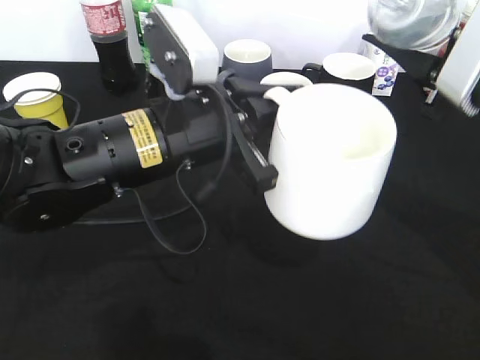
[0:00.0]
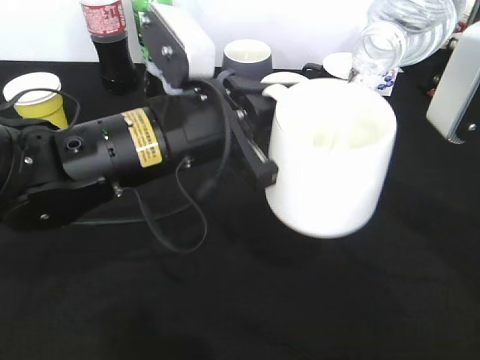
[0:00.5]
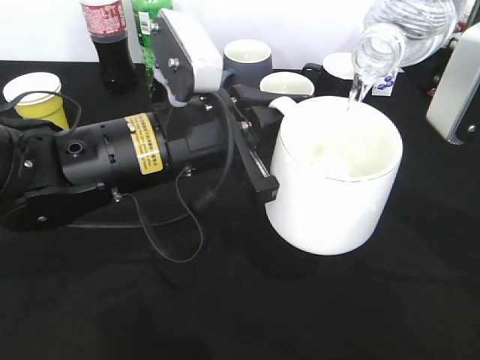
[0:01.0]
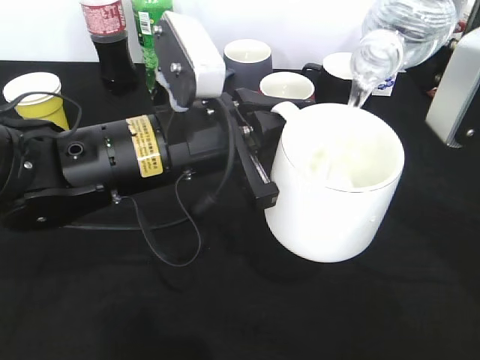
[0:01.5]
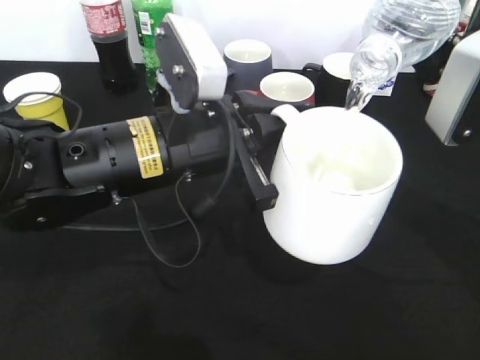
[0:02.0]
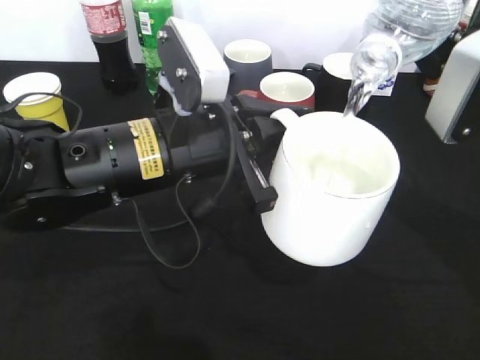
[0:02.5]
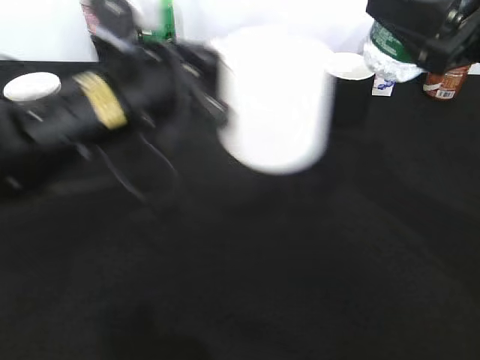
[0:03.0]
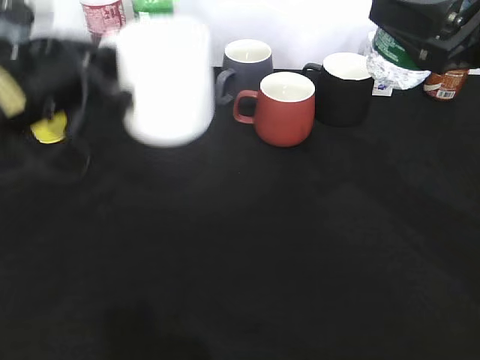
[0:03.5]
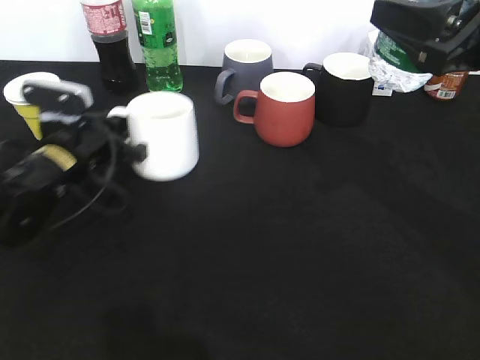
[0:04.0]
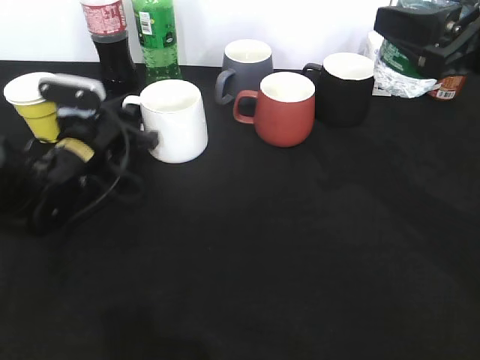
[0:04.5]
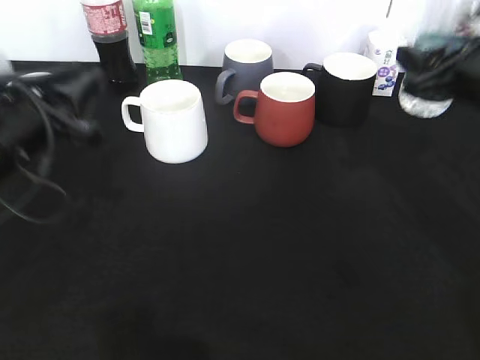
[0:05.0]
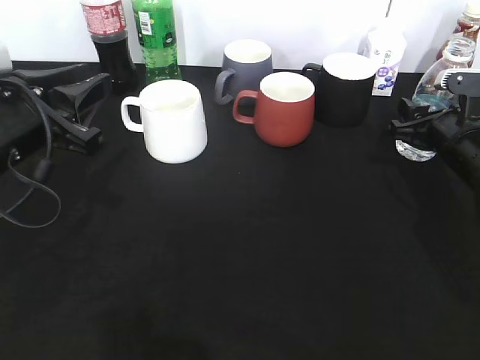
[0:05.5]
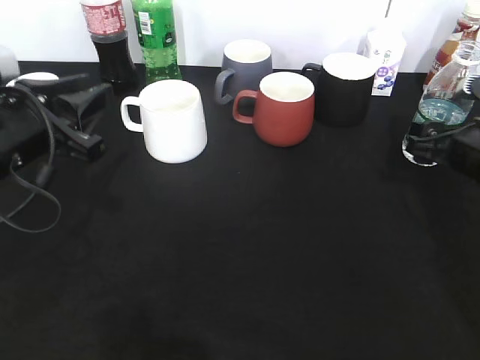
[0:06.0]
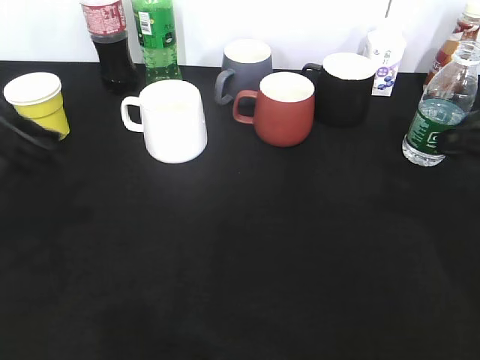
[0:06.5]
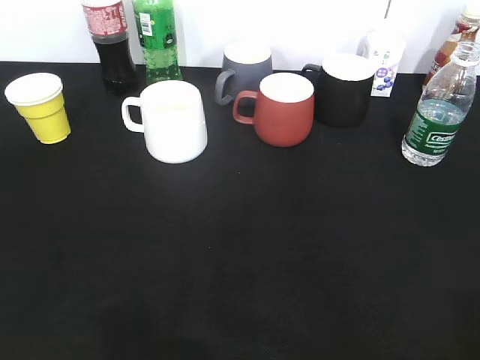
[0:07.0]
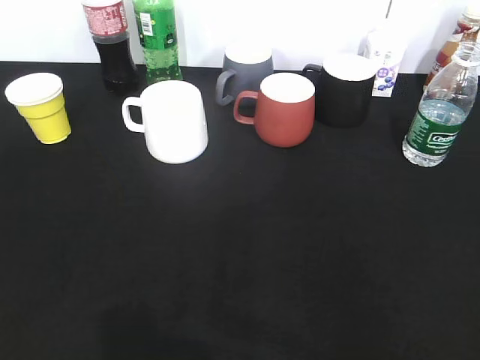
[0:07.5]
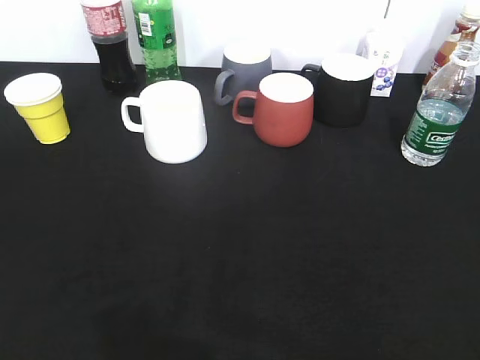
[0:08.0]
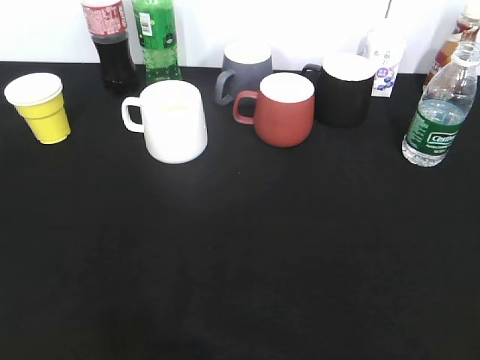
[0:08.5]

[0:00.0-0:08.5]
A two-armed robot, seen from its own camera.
Step, 0:03.5 to 0:04.5: Place the white cup on the table with left gripper.
Step, 0:05.0 to 0:06.0: Place the water bottle on the table with right gripper.
0:02.0 to 0:04.0: The left gripper shifts approximately 20 cm to the left, forward and downward.
0:04.0 to 0:06.5: The left gripper moves upward and backward, approximately 15 cm, and opens up, while the right gripper goes downward and returns, roughly 15 cm each way, and opens up.
0:06.5 to 0:08.5: The grippers both shift backward by roughly 25 cm.
